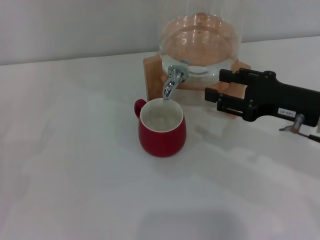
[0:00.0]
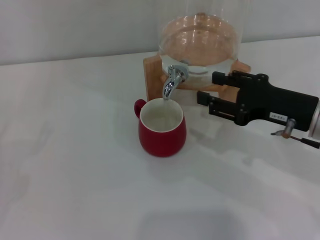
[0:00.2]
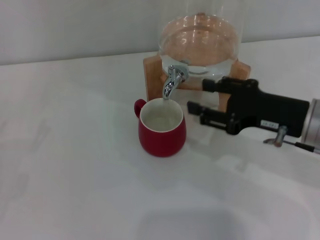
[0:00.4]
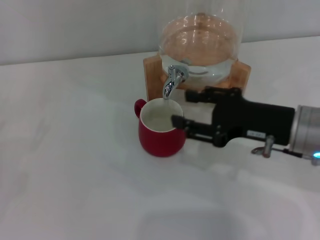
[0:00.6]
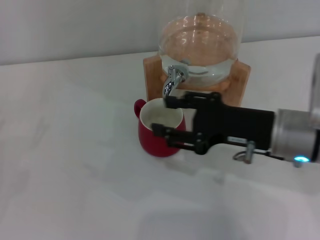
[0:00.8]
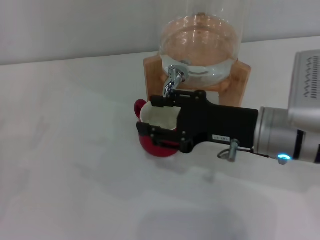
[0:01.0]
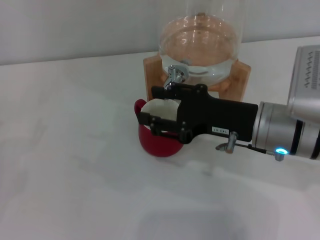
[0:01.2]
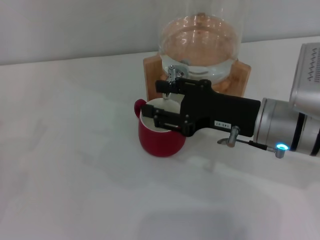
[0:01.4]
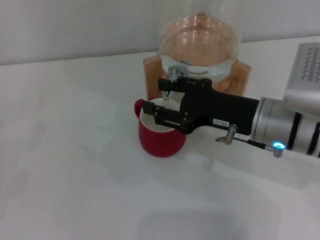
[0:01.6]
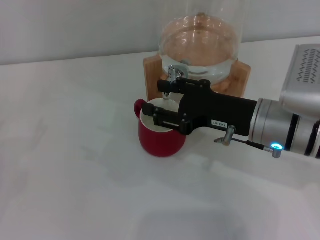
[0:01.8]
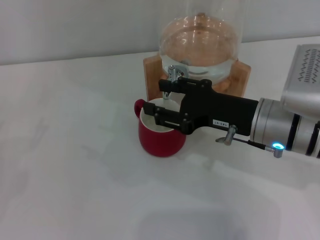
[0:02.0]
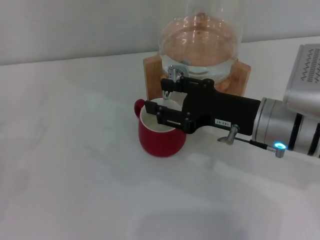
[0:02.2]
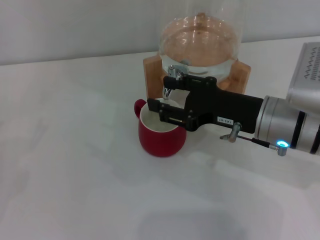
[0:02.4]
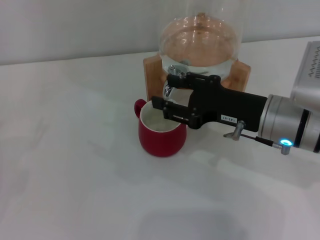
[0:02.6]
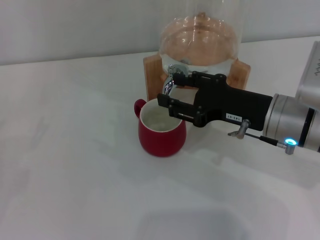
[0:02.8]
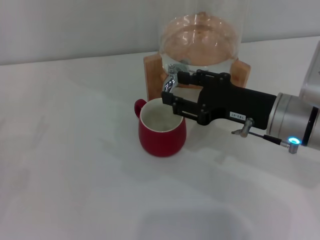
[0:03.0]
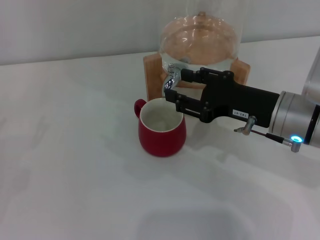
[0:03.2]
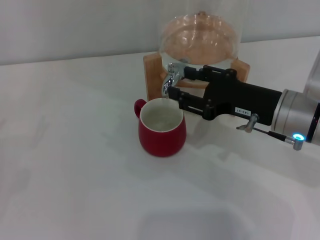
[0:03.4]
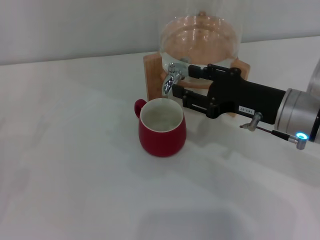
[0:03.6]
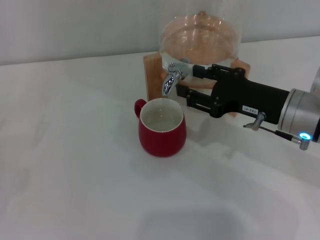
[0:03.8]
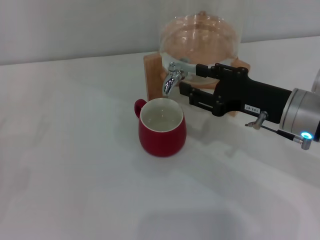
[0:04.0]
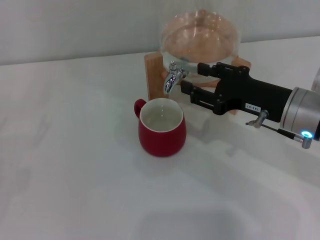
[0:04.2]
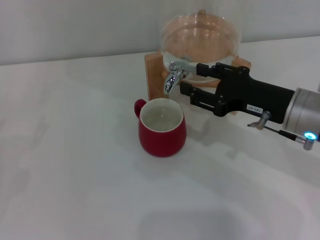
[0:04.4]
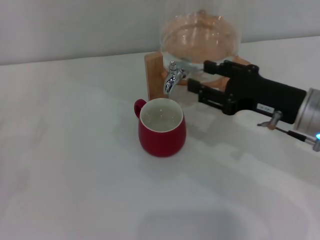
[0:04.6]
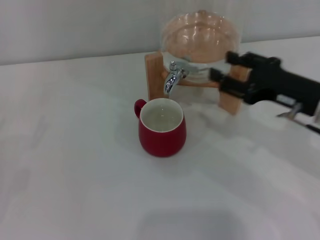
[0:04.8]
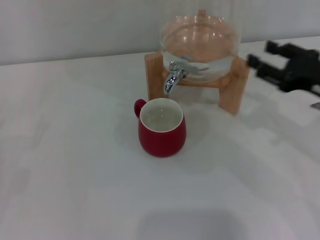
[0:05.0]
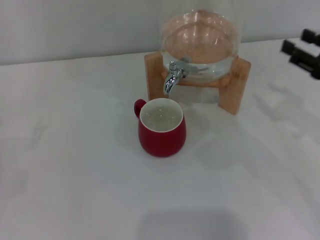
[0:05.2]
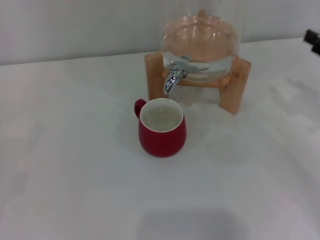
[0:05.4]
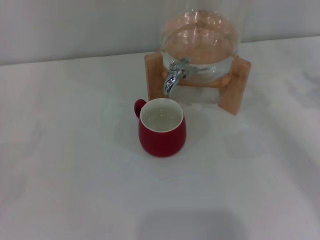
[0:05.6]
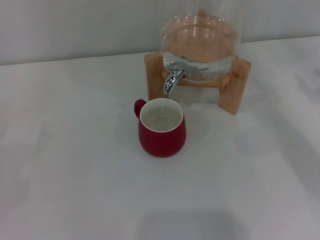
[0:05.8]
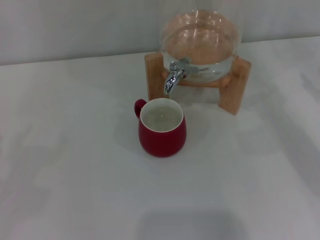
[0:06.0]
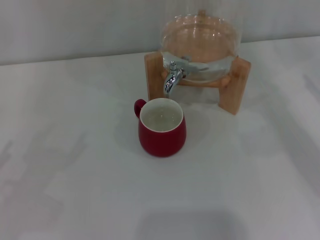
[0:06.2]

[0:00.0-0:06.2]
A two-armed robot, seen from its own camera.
Task of the whole recording: the left gripper pick up the red cup and place it horizontally under the faucet, the right gripper turn on the faucet to fill the cup, and then turn off the faucet.
Step, 0:00.0 to 0:04.4: Close the dispenser valve with the right gripper.
0:00.0 to 0:01.6: The right gripper is displaced to the left by some 10 cm.
0:01.6 to 0:04.6: The grippers make only small movements.
0:04.6 to 0:06.2: The right gripper shifts roughly 20 cm to the right.
